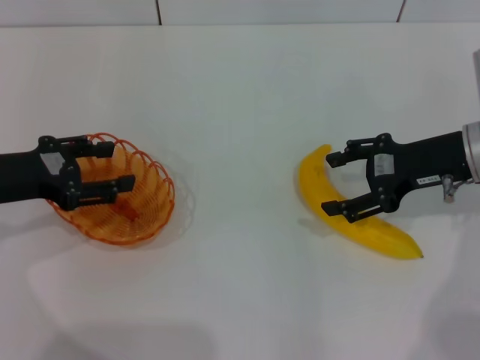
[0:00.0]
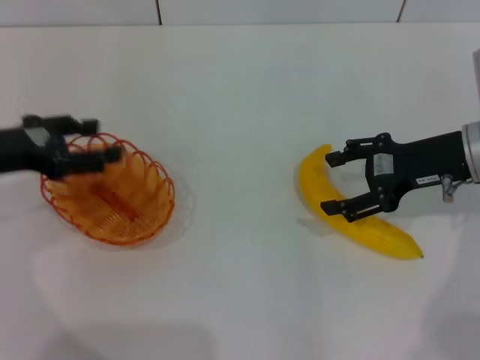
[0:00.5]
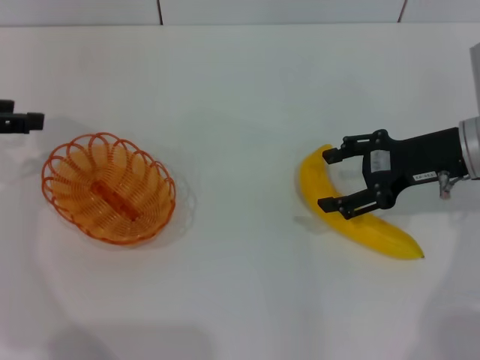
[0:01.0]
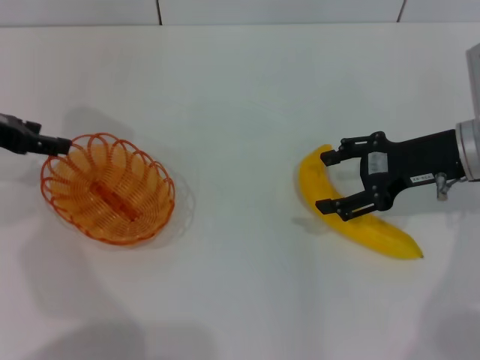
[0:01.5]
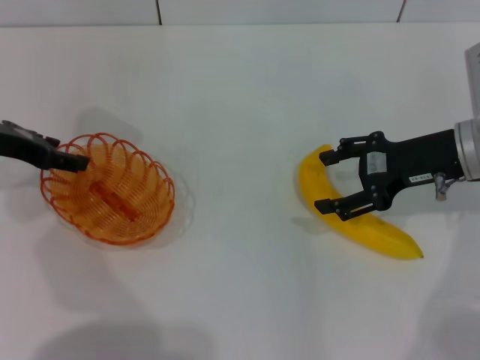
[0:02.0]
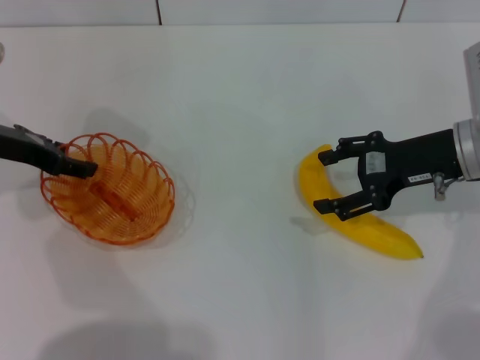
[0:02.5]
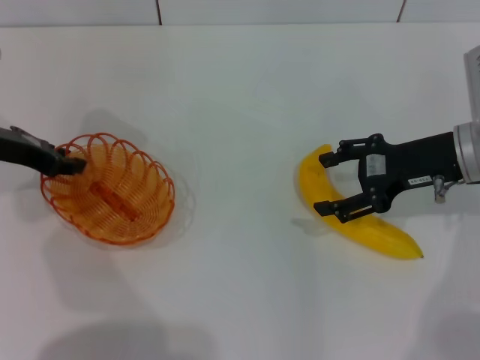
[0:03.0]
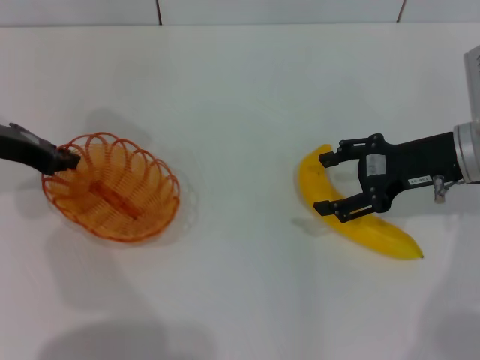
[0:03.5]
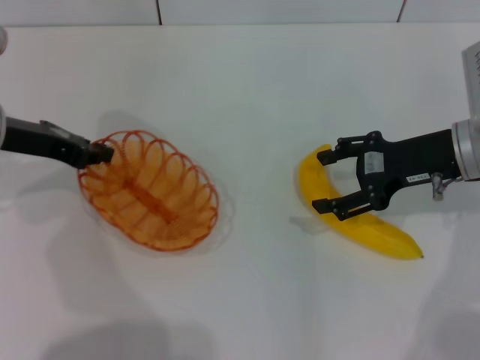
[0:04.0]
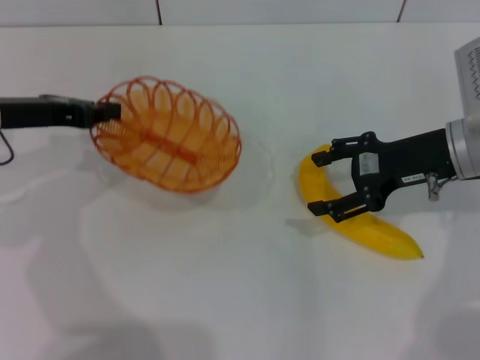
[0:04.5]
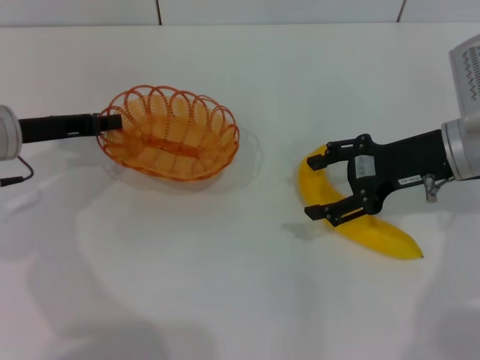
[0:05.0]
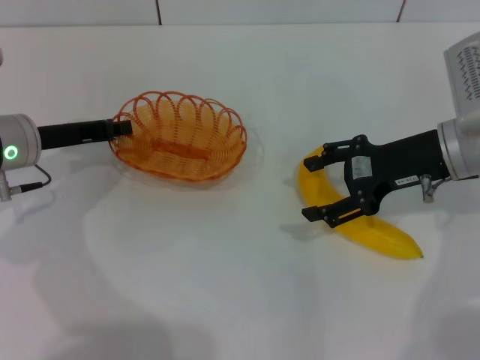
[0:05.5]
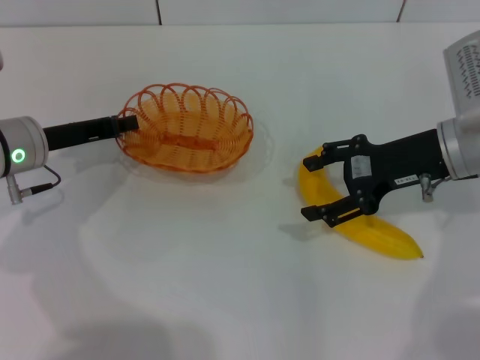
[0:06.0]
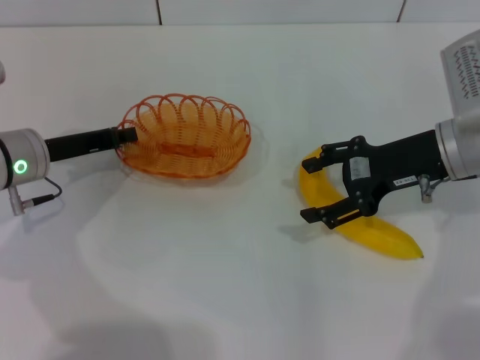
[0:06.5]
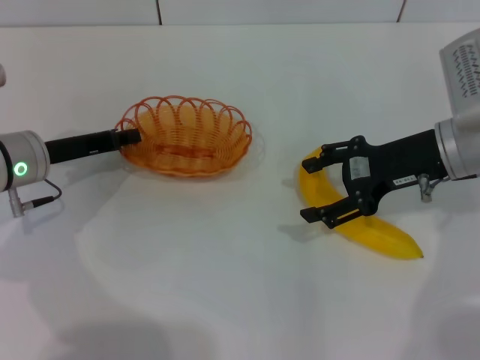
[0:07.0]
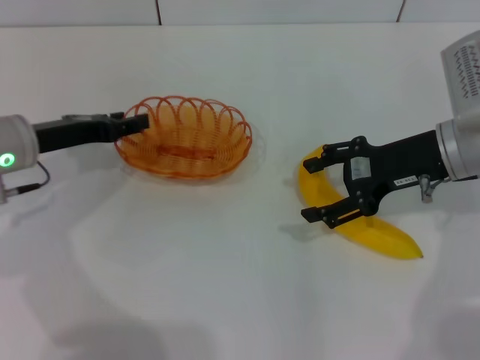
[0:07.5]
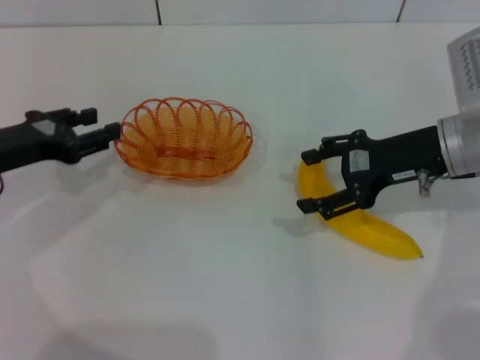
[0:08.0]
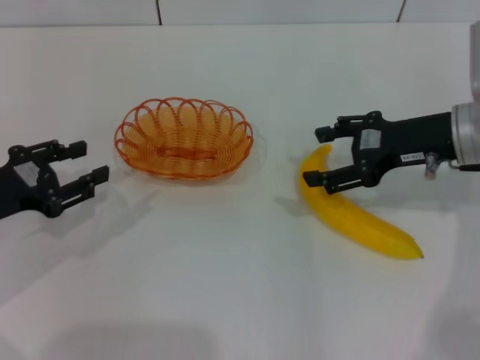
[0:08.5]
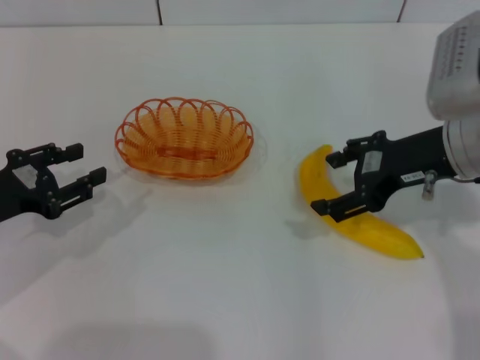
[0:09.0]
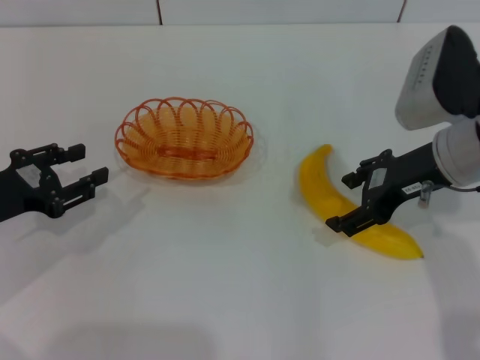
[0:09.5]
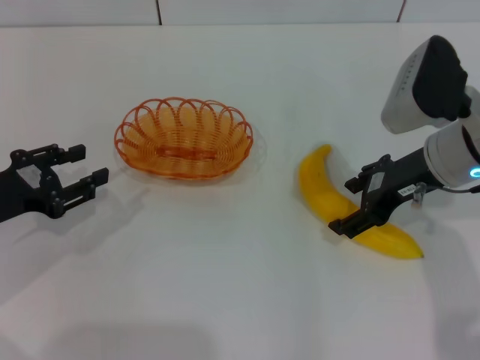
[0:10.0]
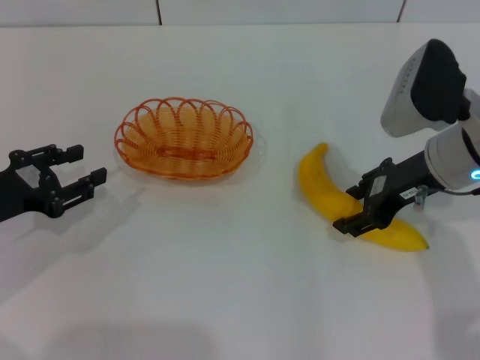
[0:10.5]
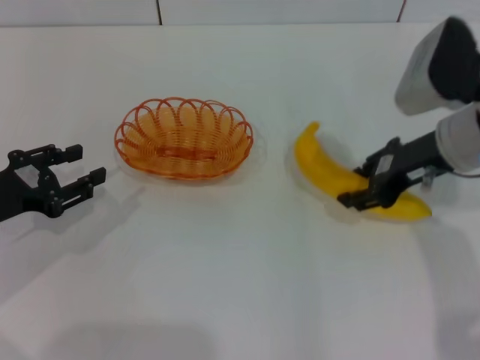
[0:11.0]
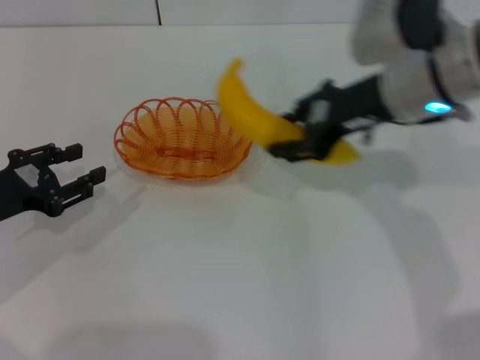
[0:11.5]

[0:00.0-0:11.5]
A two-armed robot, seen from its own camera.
Step, 0:00.0 to 0:03.5: Pick up the basket with the left gripper.
Step, 0:04.0 to 0:07.5: Place the basket in the center of view with the left gripper.
Step, 0:08.0 to 0:10.5: Pick up the banana with the right gripper.
0:00.0 to 0:02.0: The left gripper goes some 5 cm forward.
0:02.0 to 0:04.0: The left gripper closes its fingers.
0:04.0 to 0:06.0: The left gripper goes approximately 5 cm downward.
0:06.0 to 0:07.5: The left gripper opens its fingers.
0:07.5 to 0:09.5: The left gripper goes roughly 10 cm backward and to the left.
0:09.5 to 0:11.5: The right gripper is displaced to the left by roughly 5 cm, and closes.

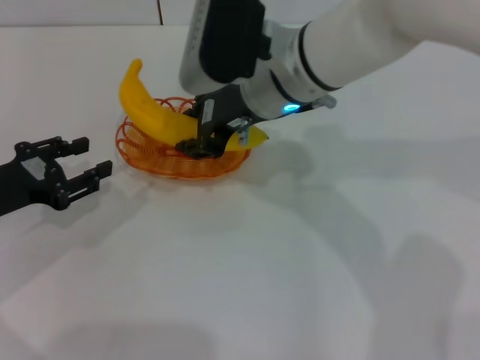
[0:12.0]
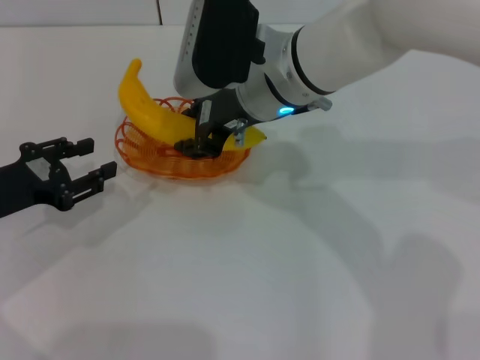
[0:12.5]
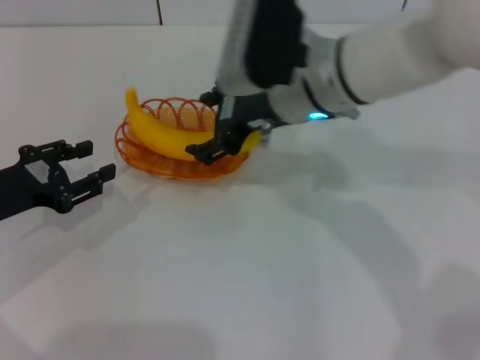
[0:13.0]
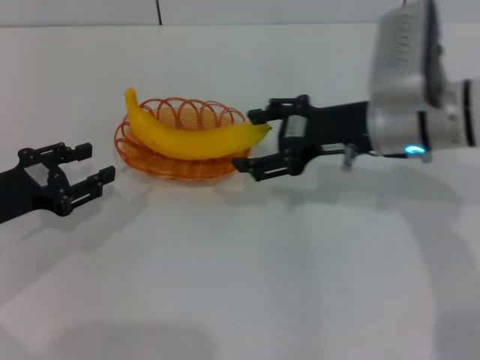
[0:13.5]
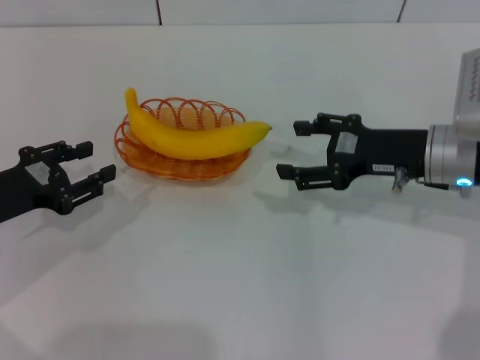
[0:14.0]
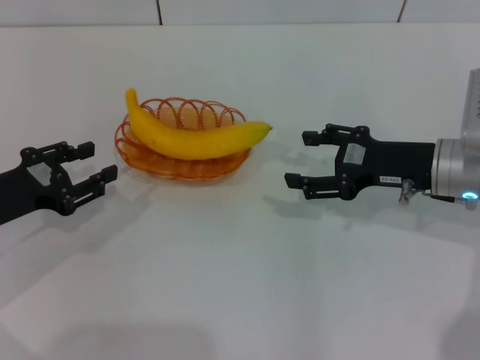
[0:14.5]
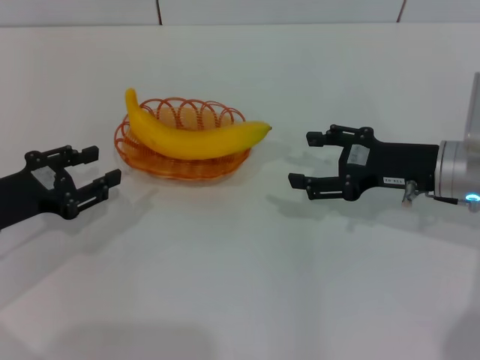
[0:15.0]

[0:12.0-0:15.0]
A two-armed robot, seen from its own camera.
0:12.0 to 0:13.5: The right gripper moves to the right, some 15 cm, and opens its fingers.
0:13.5 to 0:15.0: The right gripper travels to the right and downward by roughly 10 cm.

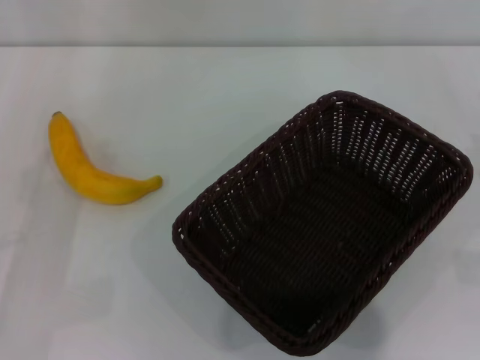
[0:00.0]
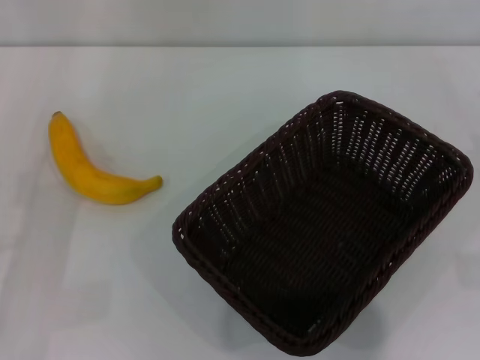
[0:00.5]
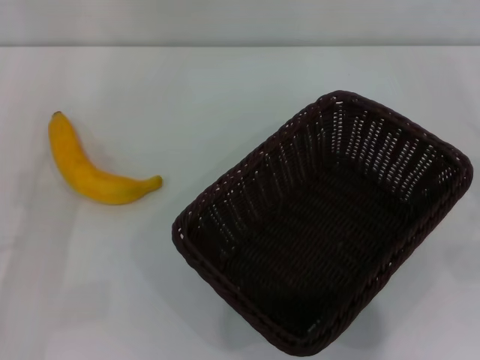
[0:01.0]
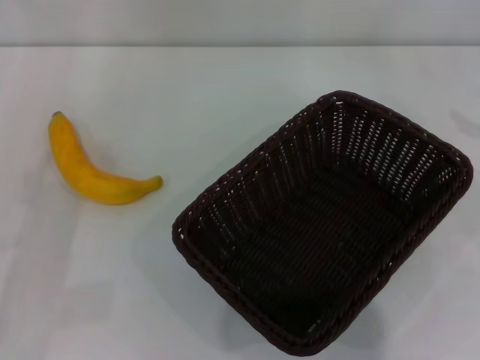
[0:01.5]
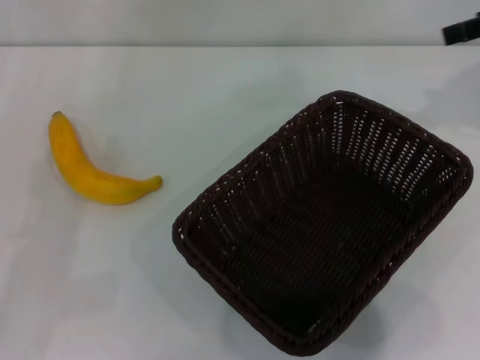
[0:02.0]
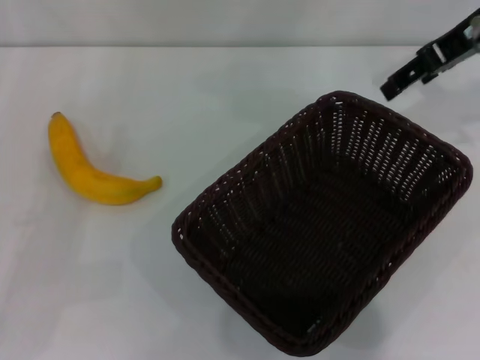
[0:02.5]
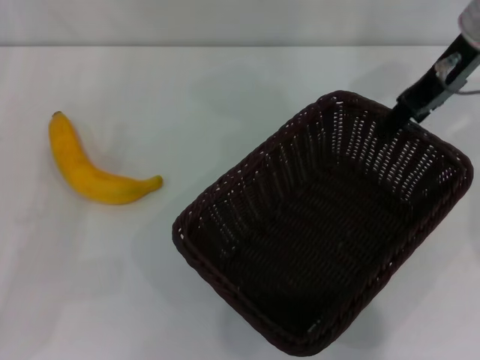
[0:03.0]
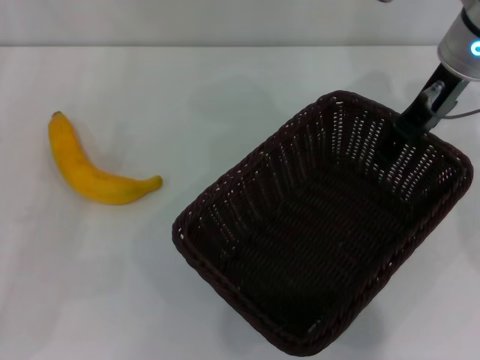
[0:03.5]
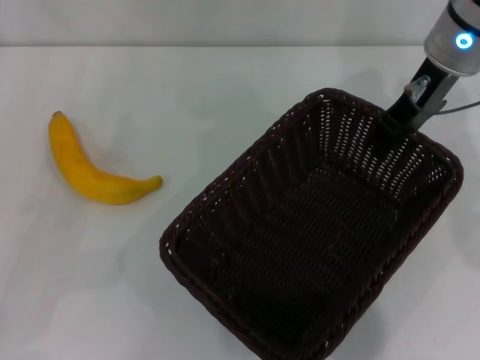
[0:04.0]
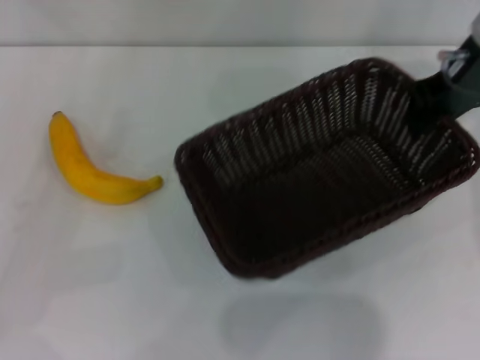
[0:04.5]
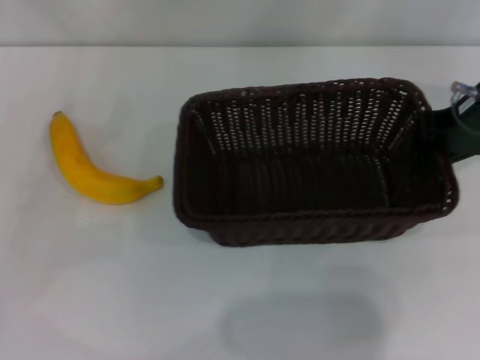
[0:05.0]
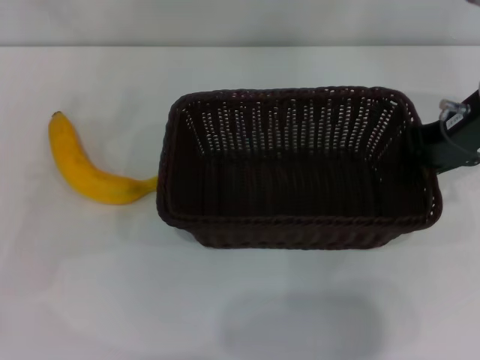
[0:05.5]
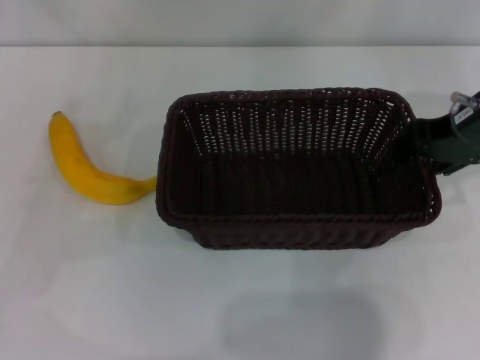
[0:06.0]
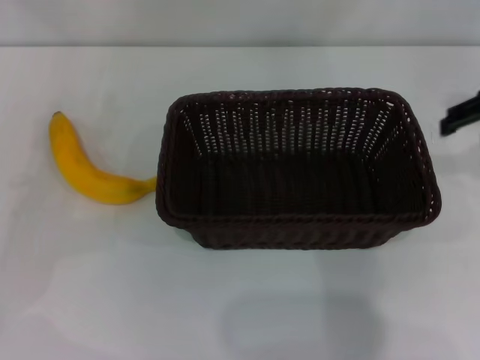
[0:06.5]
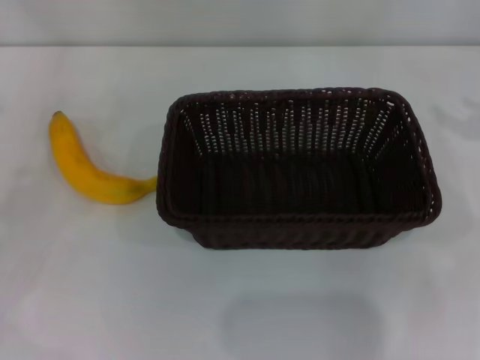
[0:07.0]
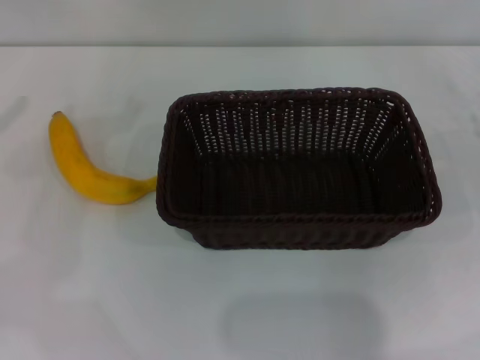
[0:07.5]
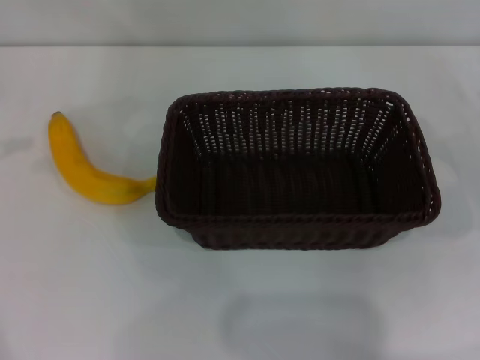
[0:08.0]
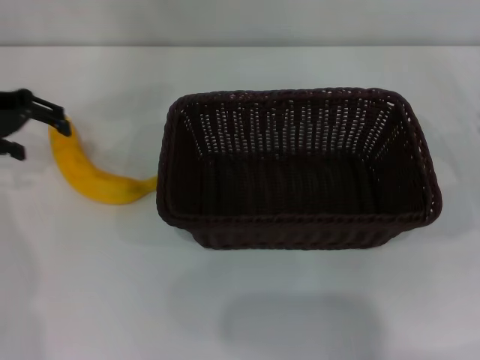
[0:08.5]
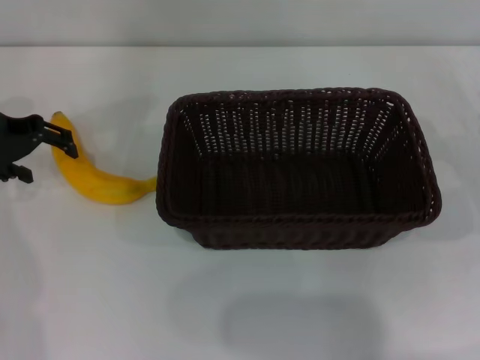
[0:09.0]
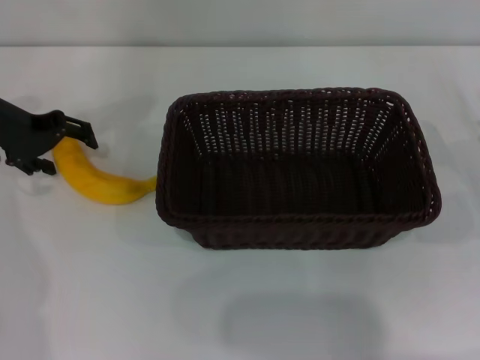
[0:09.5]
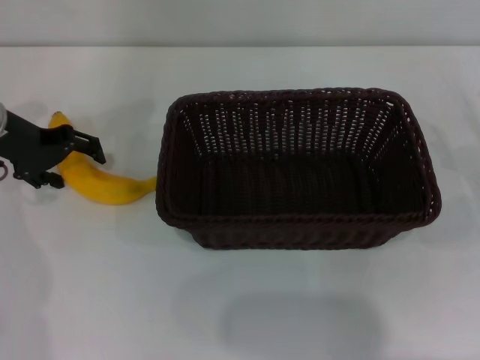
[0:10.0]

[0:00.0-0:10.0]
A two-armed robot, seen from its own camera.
Step, 0:00.0 to 0:04.0: Pick up the dark basket with the right gripper.
Step, 0:04.5 to 0:06.0: Place the dark basket in the center of view with the right gripper.
0:02.0 to 0:04.0: The right gripper travels to the left and downward by roughly 15 cm, and closes.
0:04.0 to 0:06.0: The right gripper goes some 10 cm to the right and backward. The left gripper ends up approximately 5 cm from where it was.
0:06.0 to 0:08.0: The right gripper travels to the right, downward and backward by approximately 20 cm, and opens up.
0:08.0 to 0:10.0: The left gripper goes about 15 cm downward and to the right.

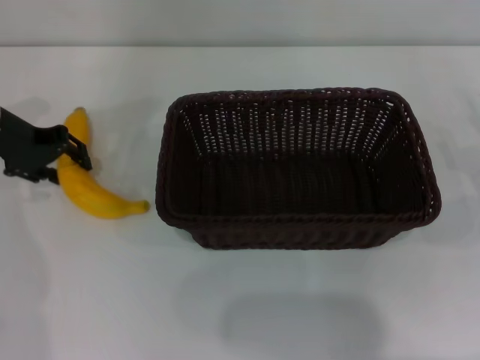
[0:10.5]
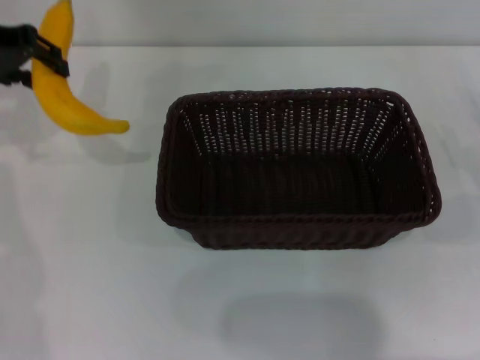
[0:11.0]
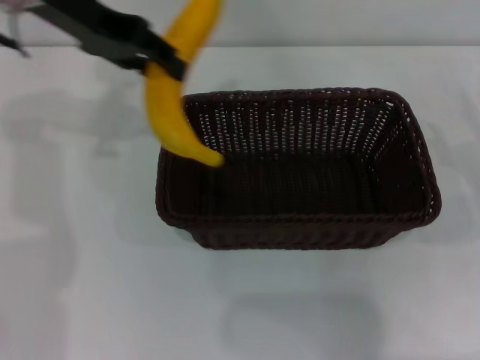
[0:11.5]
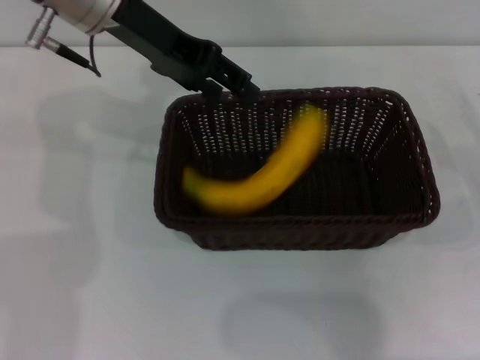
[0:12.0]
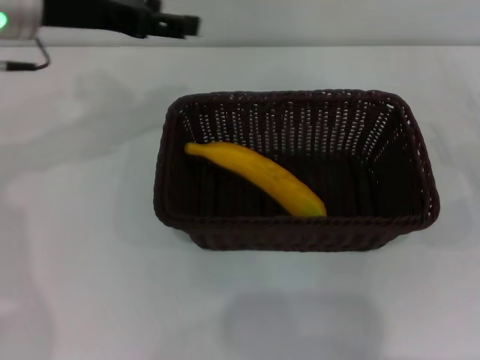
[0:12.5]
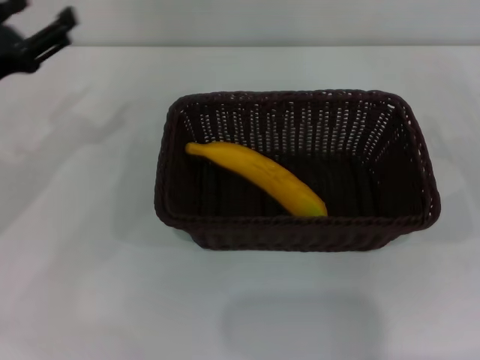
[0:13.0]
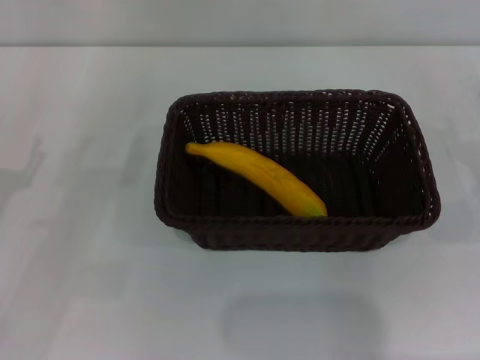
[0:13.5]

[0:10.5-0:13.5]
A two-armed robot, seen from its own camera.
Step, 0:11.0 to 0:11.5: Place the banana into the dark basket with the left gripper.
0:10.5 to 0:12.0: The left gripper is displaced to the right and upward by roughly 20 cm, and closes and opens again.
0:12.0 to 0:13.5: The left gripper heads downward, to the left and backward, covering some 30 cm, and opens its fingers.
